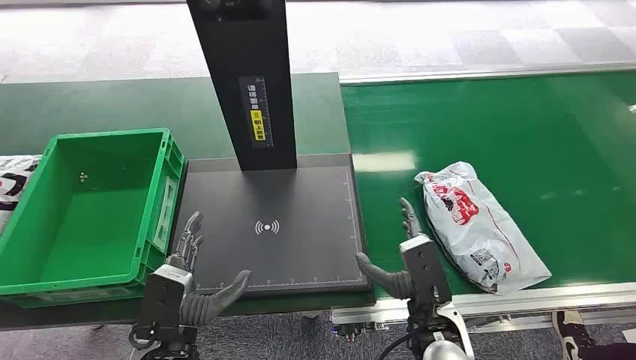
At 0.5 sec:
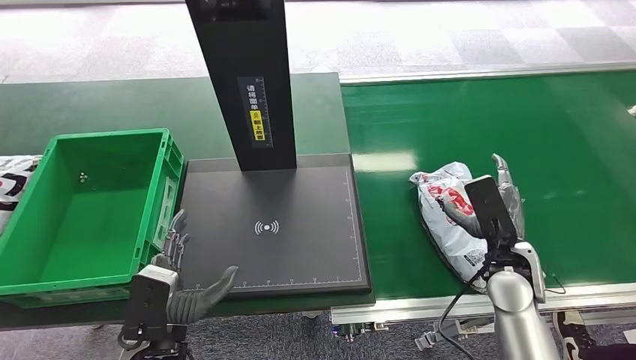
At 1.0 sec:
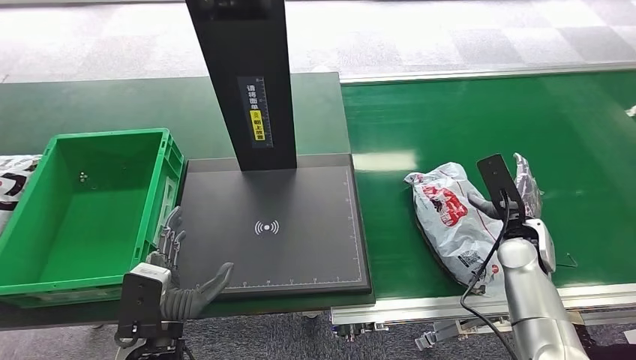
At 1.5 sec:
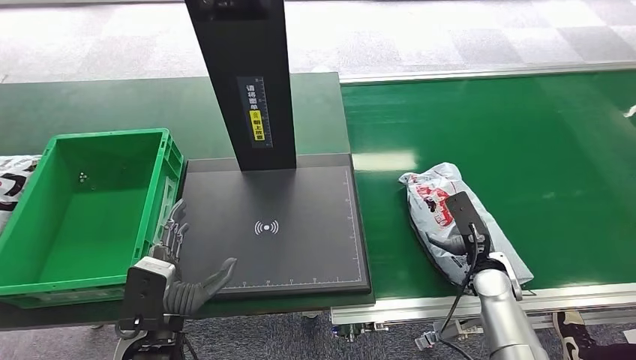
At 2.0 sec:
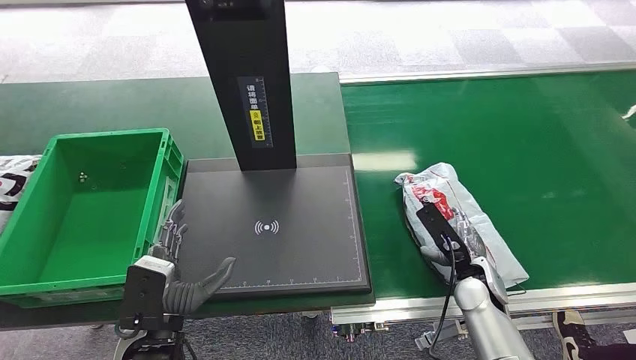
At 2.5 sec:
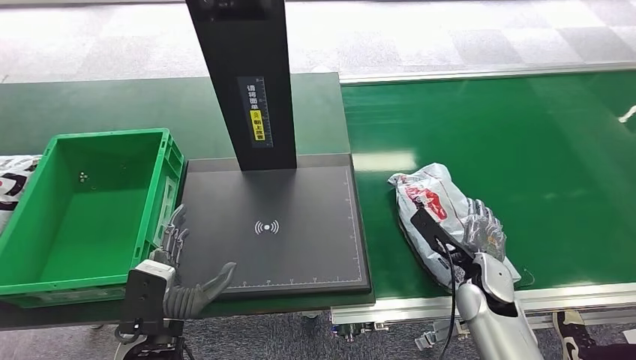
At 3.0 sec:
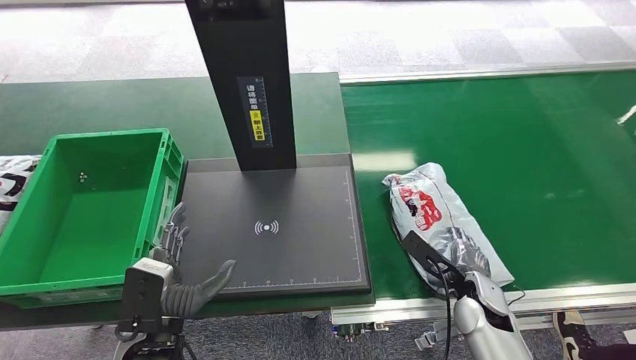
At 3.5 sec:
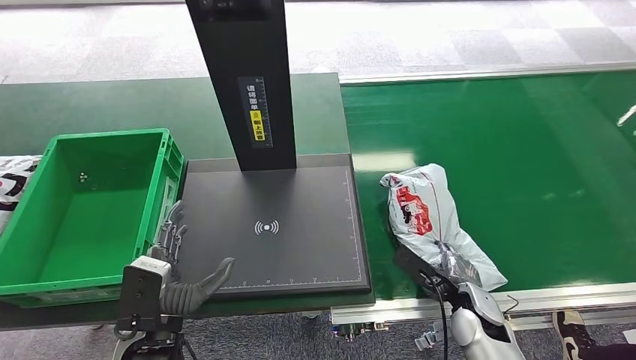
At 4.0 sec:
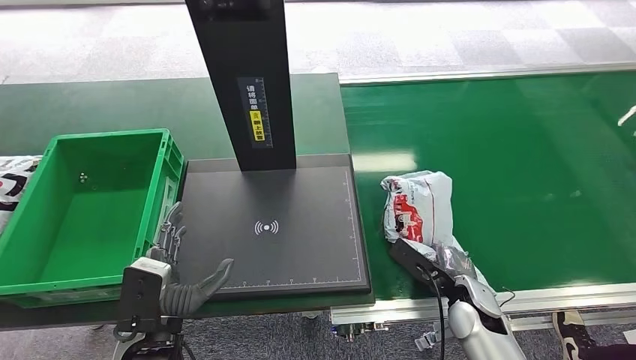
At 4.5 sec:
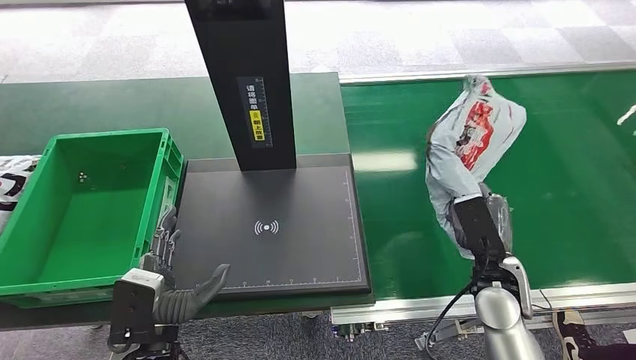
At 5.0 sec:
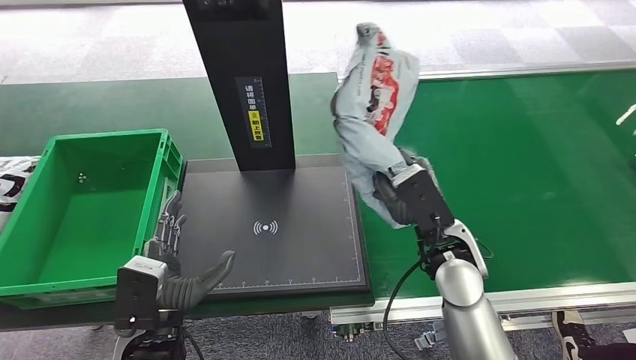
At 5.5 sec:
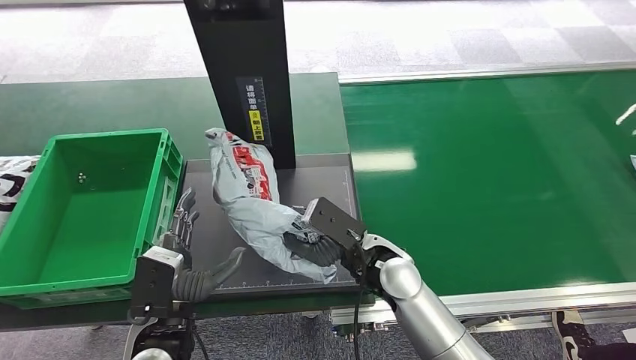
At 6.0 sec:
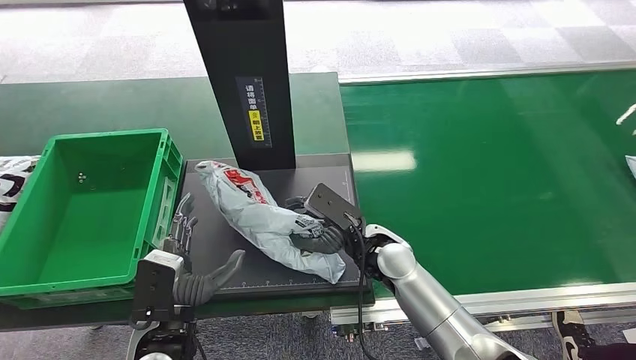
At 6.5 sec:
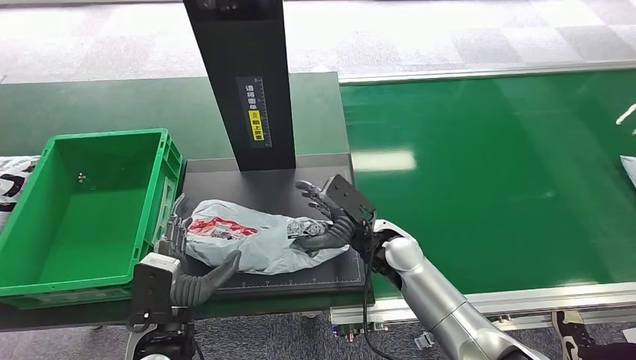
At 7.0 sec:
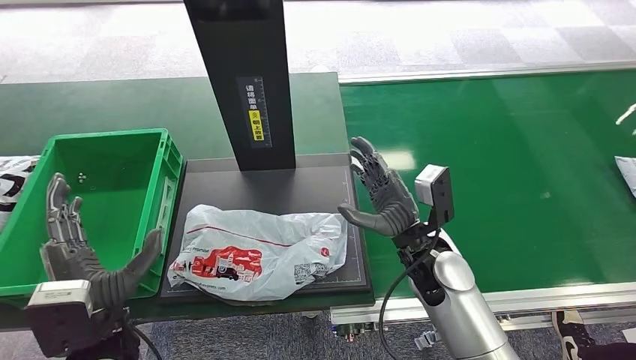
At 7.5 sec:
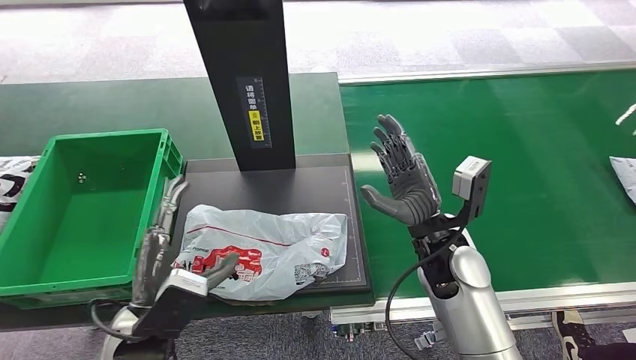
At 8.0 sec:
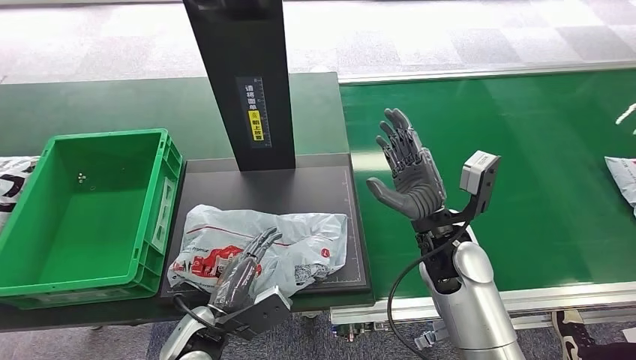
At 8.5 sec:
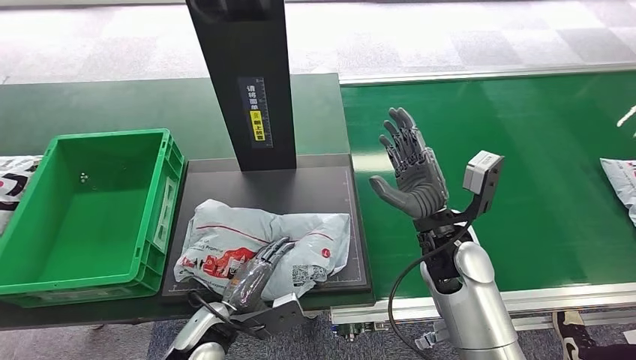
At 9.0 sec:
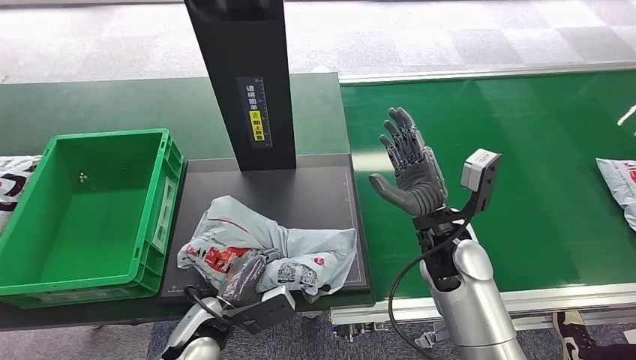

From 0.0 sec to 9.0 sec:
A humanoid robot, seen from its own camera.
Step, from 0.0 sec to 4.5 sec: Pick up the package from the conveyor belt.
Step, from 5.0 sec to 7.5 sec: Place the package onto the inbound machine.
From 2.0 sec to 4.5 sec: The right hand heads upward, covering some 5 cm.
From 7.0 sec to 9.0 sec: The left hand shifts about 15 cm downward and to the right.

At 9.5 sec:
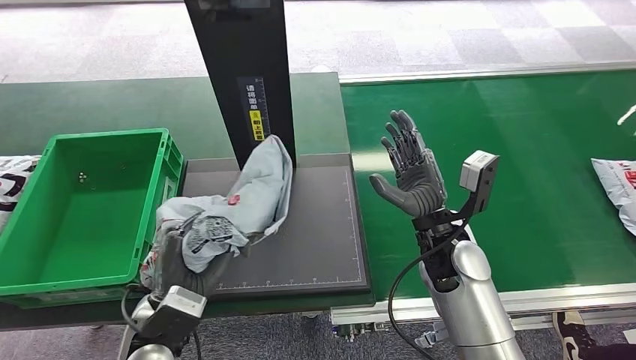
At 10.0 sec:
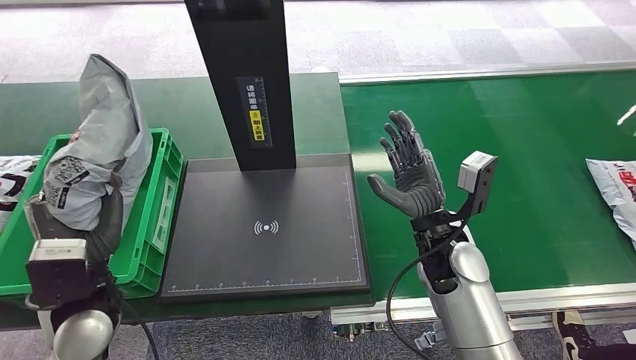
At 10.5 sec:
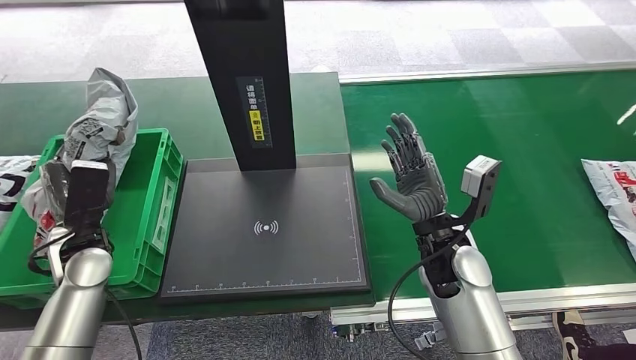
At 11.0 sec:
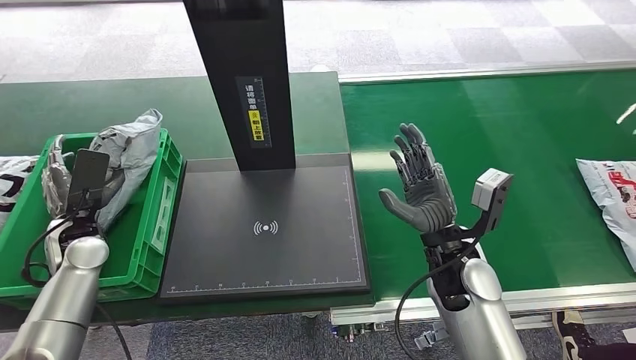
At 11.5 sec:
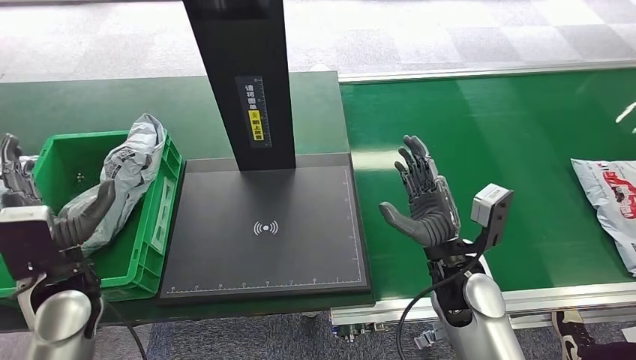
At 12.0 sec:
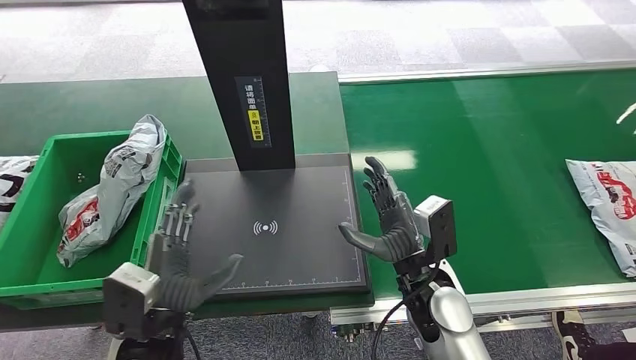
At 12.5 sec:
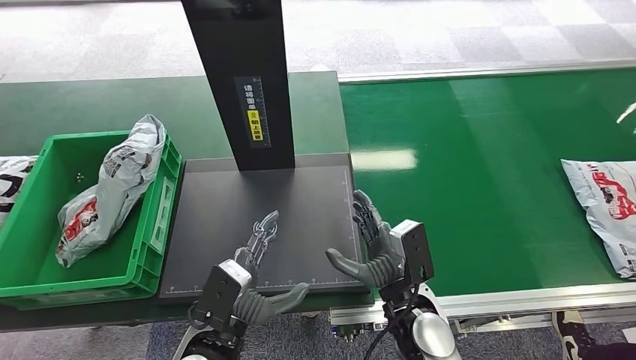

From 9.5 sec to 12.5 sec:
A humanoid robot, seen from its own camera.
Step, from 10.5 sec to 12.5 sec: Place the package into the parcel locker.

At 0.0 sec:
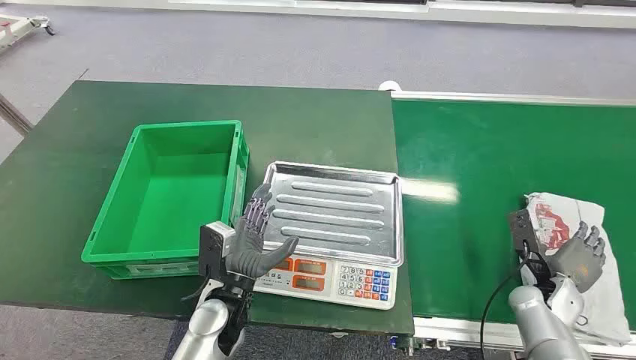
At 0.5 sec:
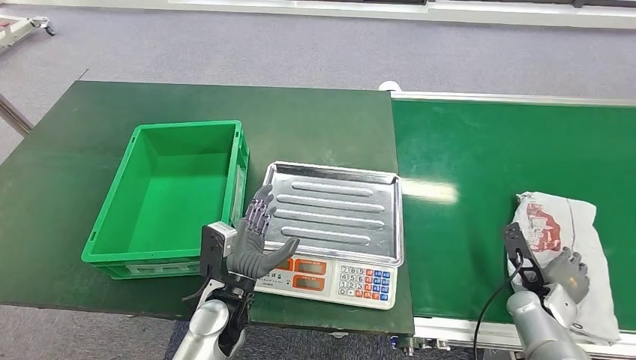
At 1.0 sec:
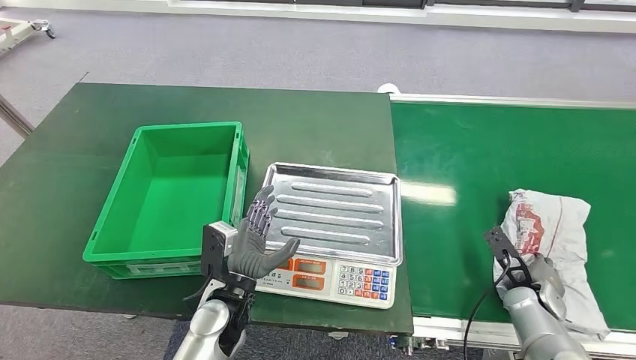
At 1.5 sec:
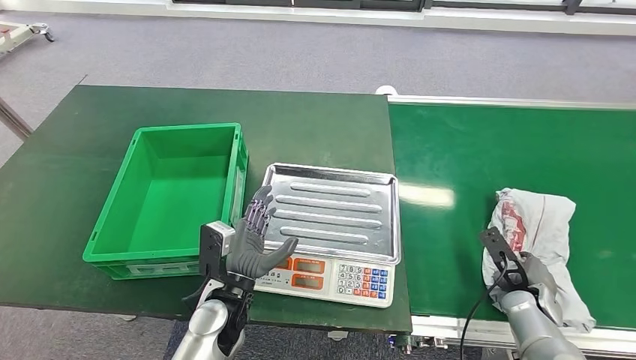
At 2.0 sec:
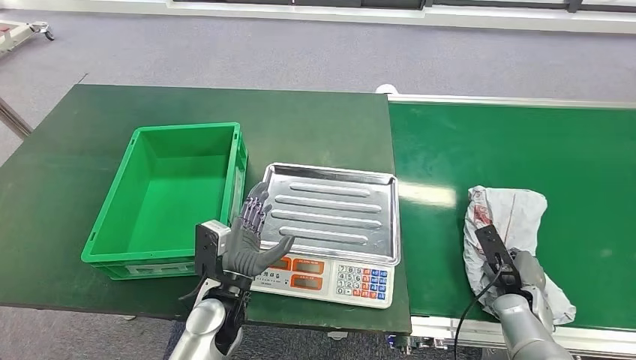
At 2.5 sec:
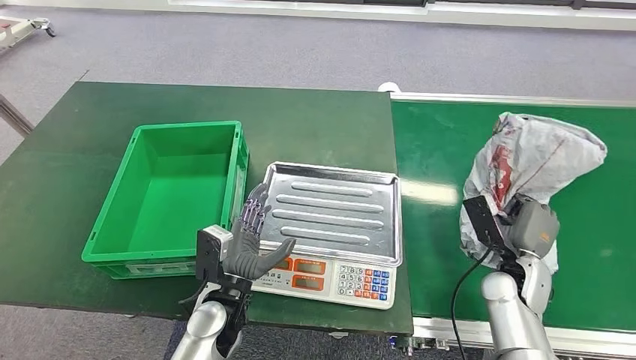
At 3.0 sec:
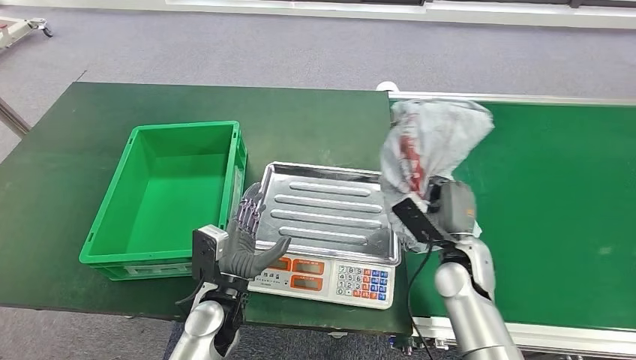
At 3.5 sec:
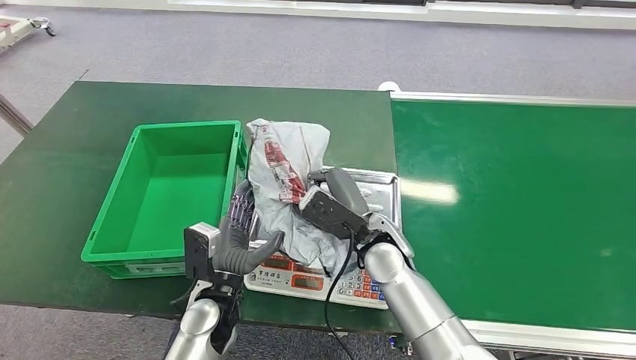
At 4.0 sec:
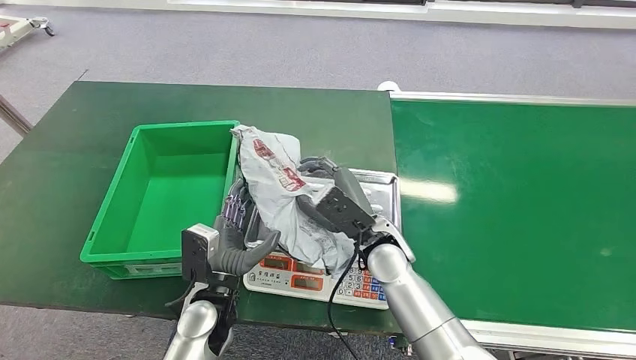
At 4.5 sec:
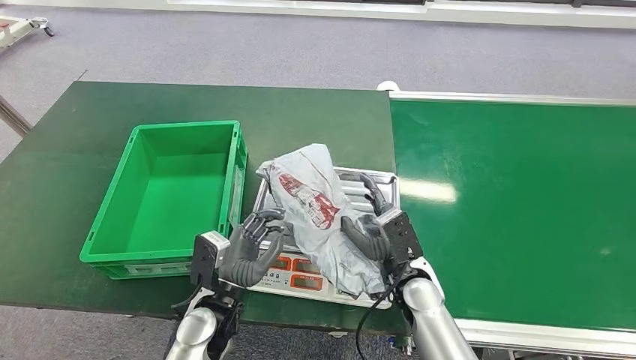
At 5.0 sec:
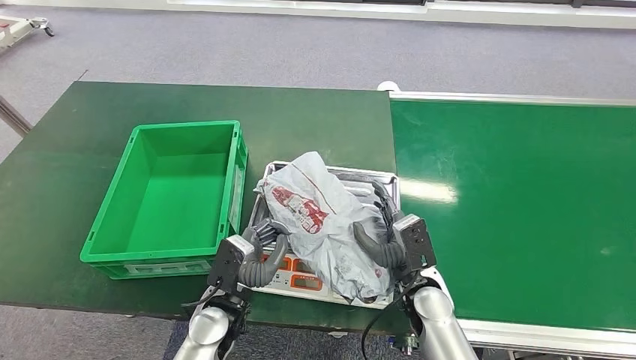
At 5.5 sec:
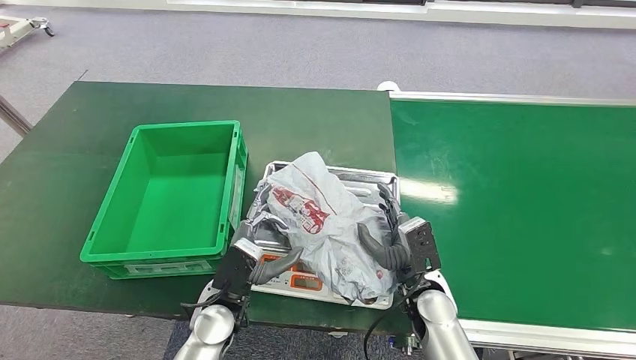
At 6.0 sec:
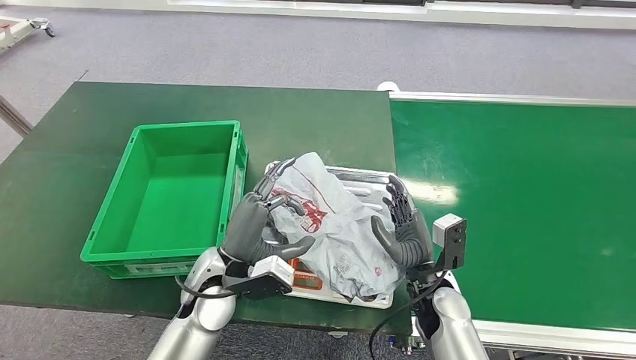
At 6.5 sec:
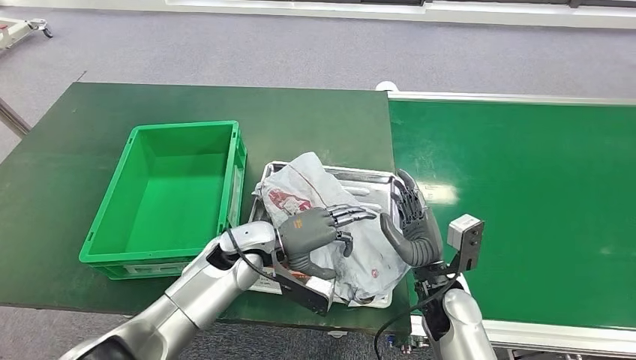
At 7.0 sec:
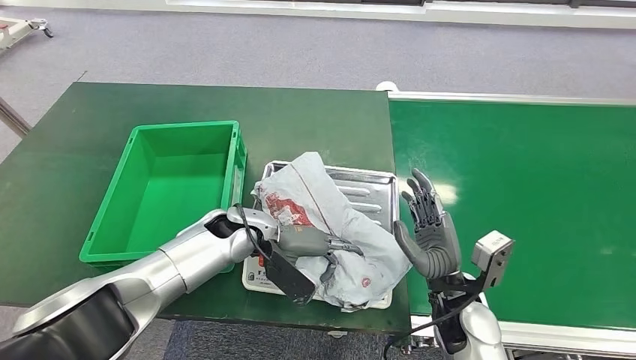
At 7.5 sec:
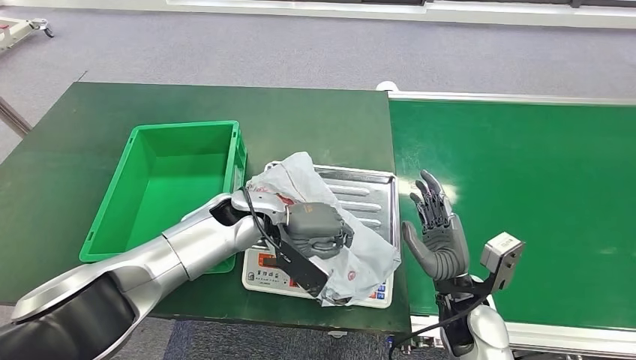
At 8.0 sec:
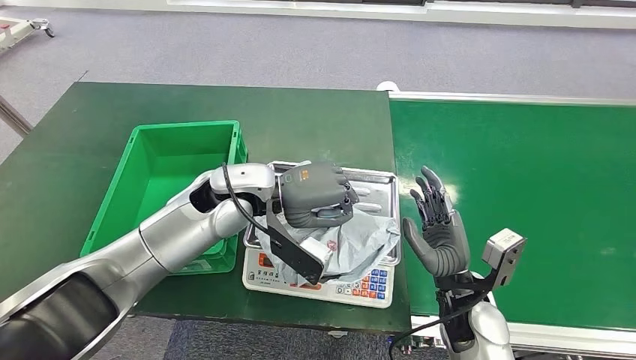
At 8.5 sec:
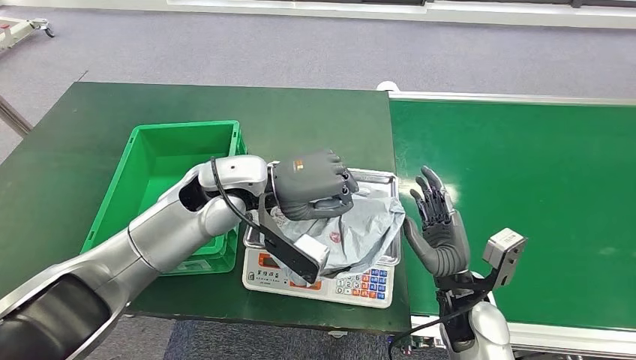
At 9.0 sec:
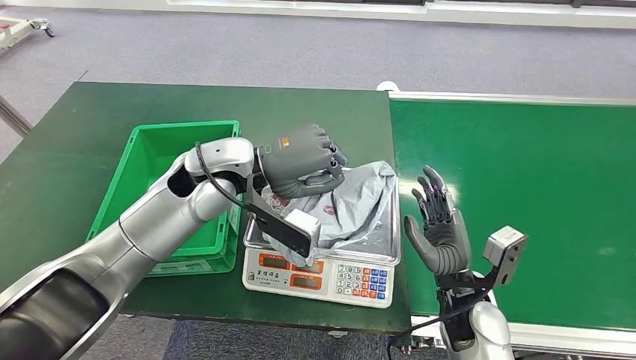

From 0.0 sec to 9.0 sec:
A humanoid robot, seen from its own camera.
Step, from 0.0 sec to 2.5 sec: Pick up the package from the conveyor belt.
Step, from 3.0 sec to 5.0 sec: Place the package onto the inbound machine.
